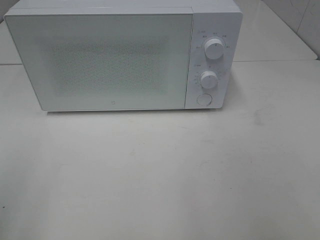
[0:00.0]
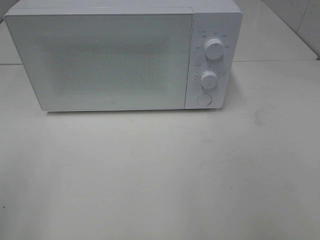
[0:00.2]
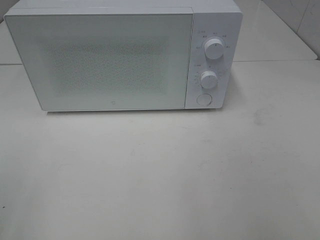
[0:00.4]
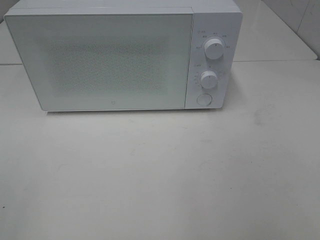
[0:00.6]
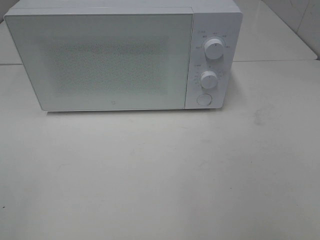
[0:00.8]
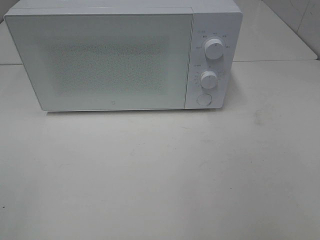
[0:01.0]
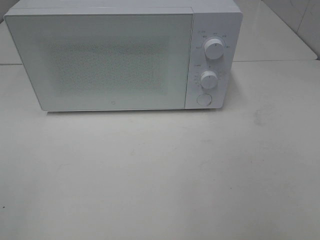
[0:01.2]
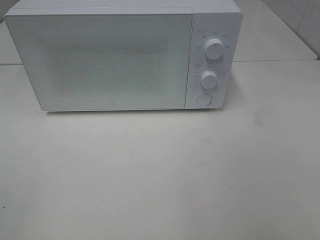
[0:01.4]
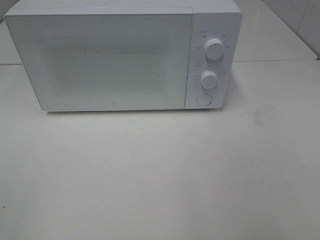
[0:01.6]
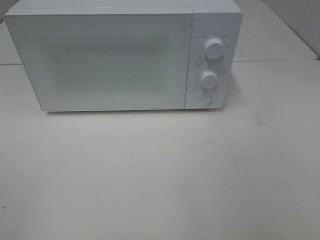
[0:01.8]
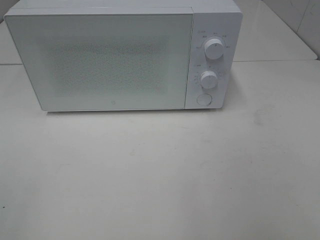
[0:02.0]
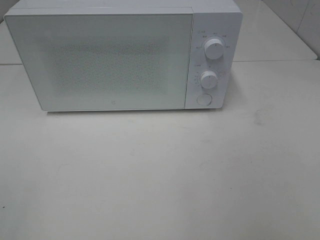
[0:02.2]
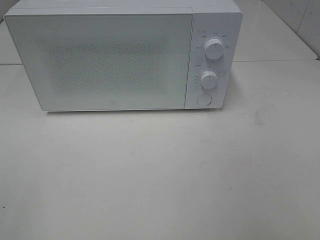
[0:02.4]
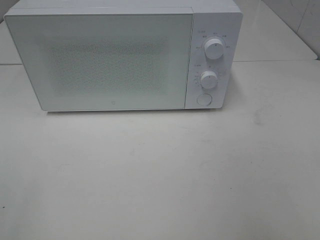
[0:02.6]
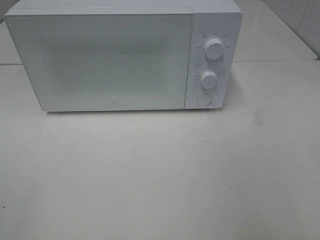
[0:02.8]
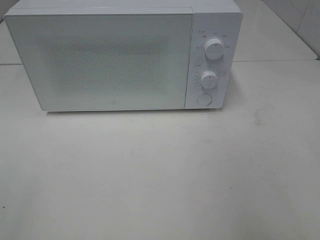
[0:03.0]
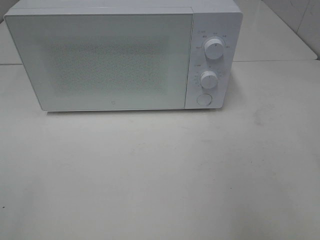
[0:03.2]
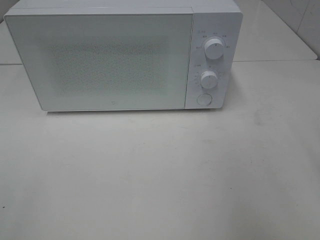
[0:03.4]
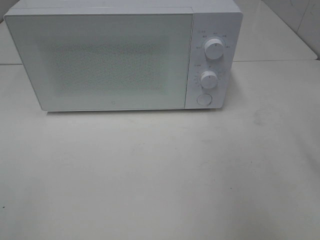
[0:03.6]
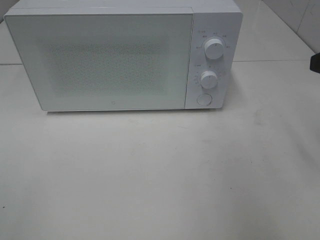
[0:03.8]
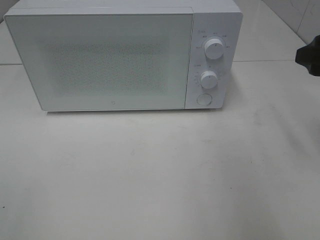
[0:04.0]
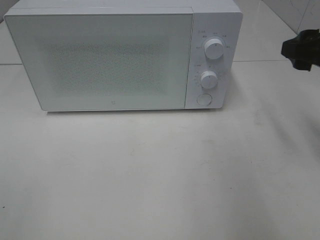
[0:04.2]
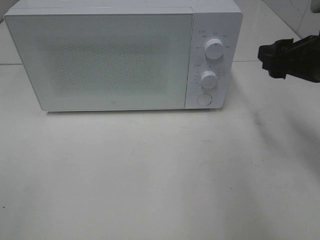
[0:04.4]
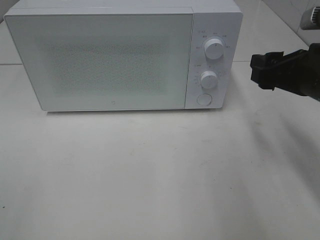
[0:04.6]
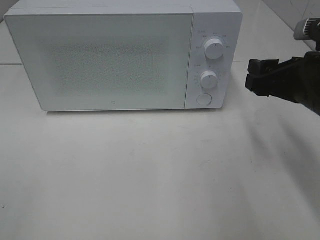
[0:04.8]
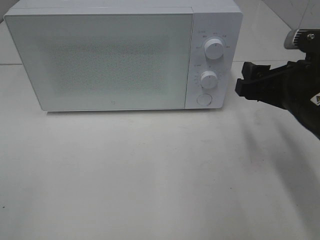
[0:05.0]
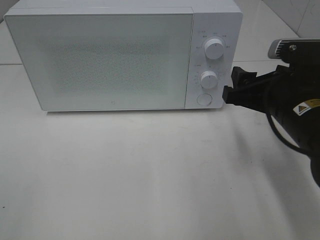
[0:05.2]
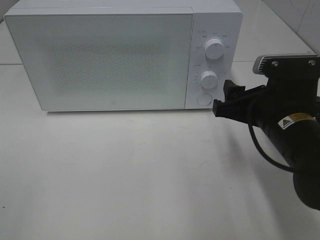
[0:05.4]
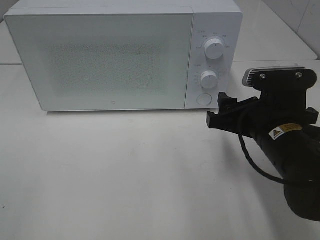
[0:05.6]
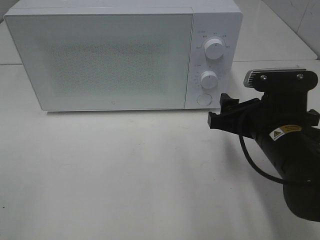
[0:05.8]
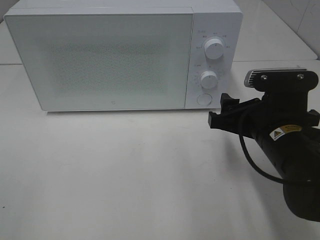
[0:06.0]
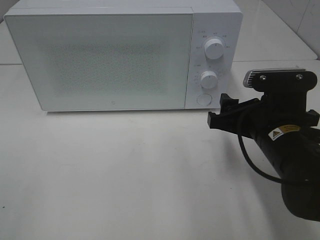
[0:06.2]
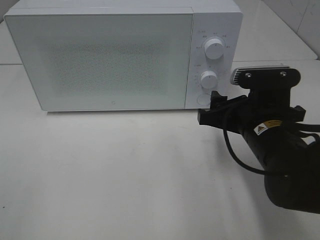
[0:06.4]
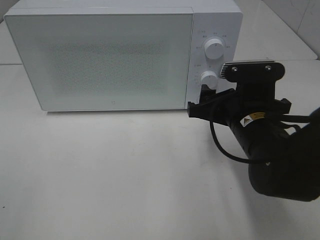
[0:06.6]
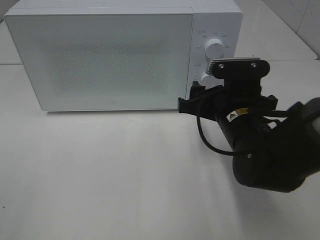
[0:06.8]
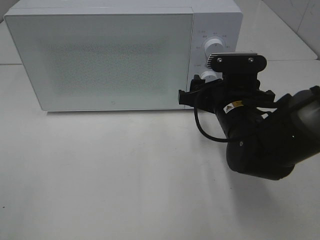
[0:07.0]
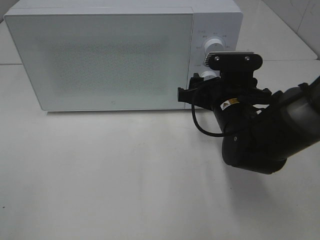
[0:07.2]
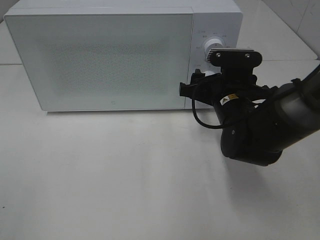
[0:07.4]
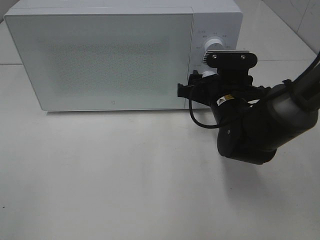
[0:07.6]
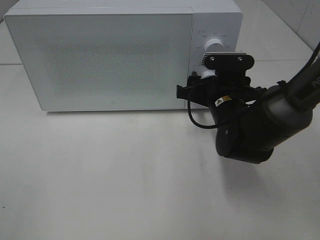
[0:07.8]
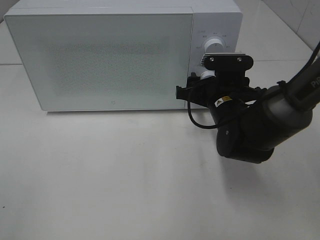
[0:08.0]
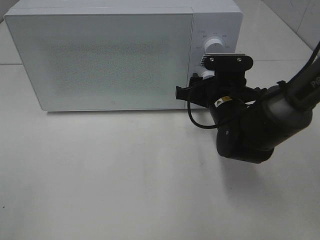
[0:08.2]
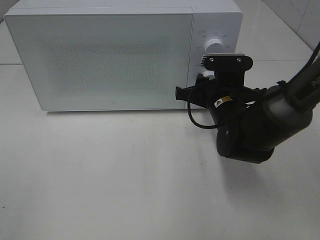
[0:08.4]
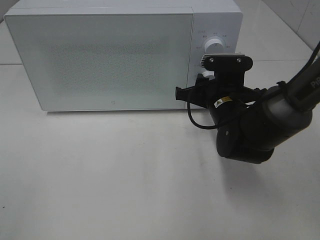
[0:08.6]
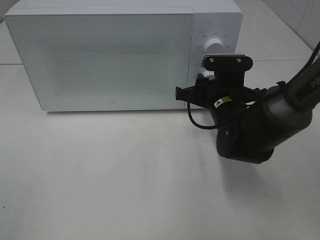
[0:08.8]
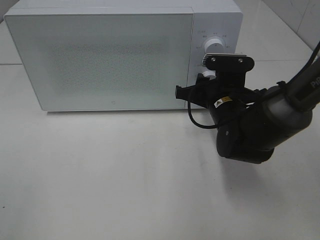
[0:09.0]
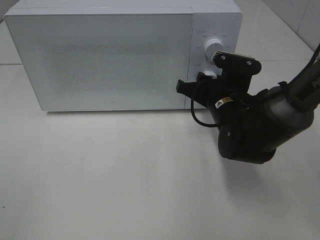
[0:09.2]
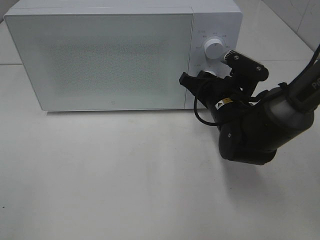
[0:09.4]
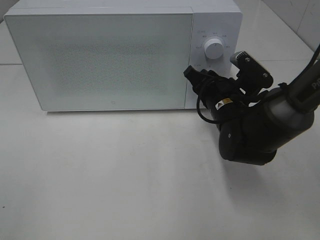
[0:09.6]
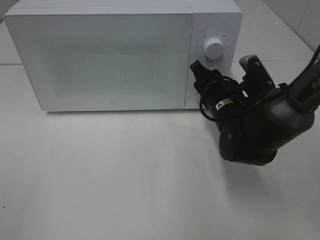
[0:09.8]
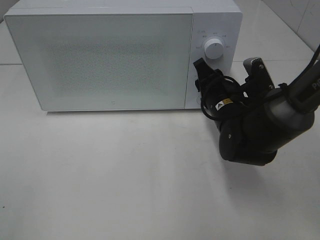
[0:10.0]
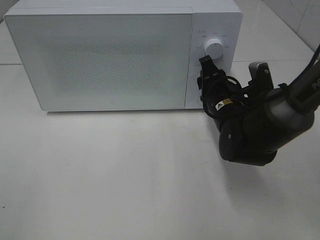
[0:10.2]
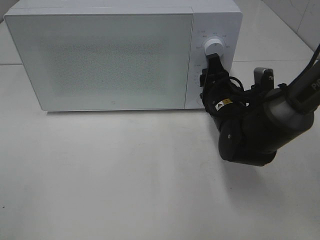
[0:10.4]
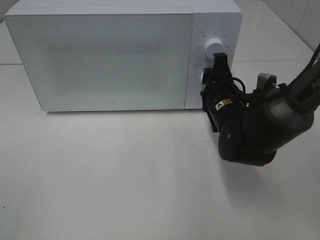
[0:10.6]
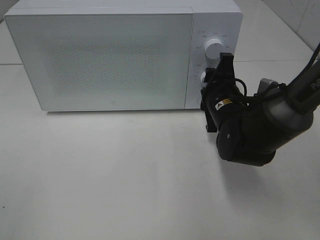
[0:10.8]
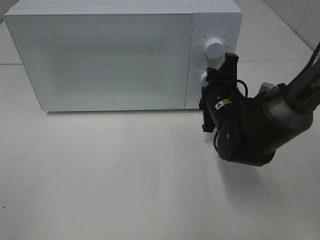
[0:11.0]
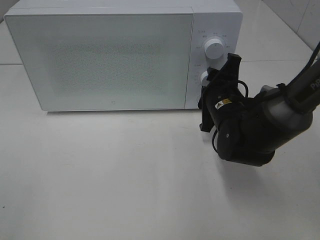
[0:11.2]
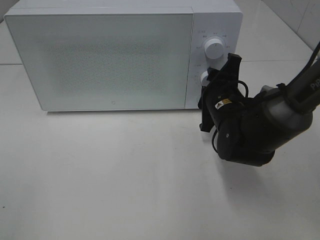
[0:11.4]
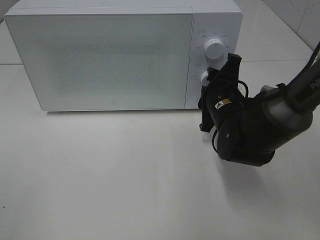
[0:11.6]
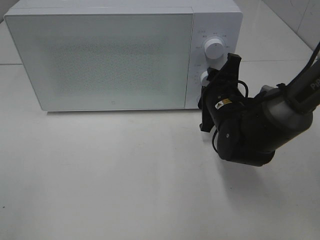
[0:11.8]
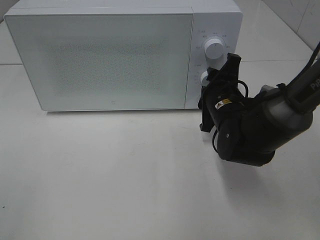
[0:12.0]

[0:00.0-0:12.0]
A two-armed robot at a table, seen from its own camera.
Task of the whole recording: Heat the burger.
0:03.0 to 0:04.4: The right gripper is displaced forward and downward by roughly 20 cm.
0:04.4 to 0:06.0: The right gripper heads downward and to the left, covering some 10 cm.
0:06.0 to 0:07.6: The right gripper moves forward, about 10 cm.
0:07.6 to 0:09.0: Neither gripper changes place.

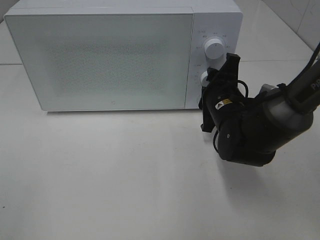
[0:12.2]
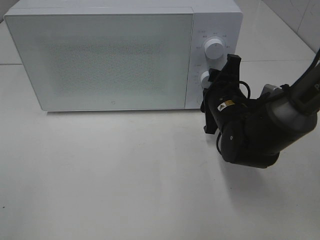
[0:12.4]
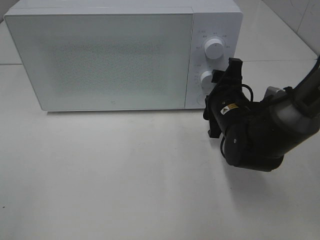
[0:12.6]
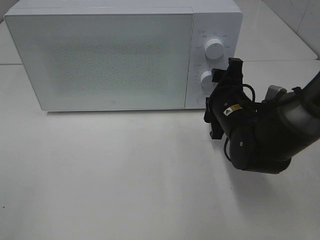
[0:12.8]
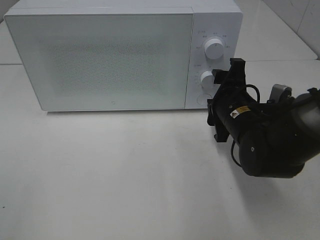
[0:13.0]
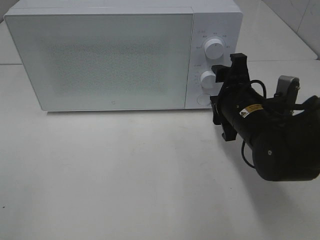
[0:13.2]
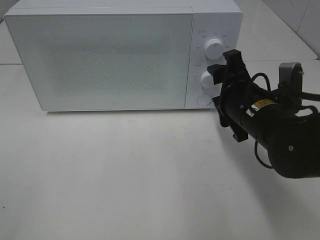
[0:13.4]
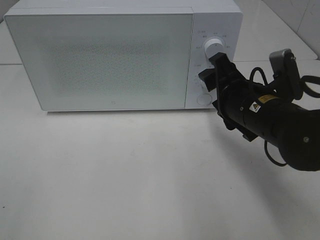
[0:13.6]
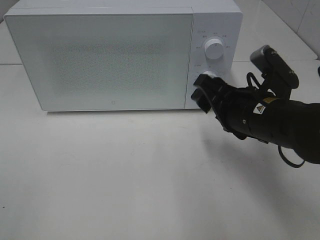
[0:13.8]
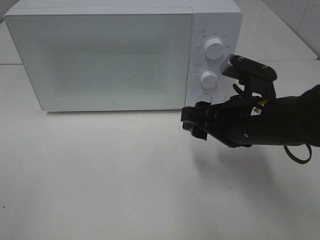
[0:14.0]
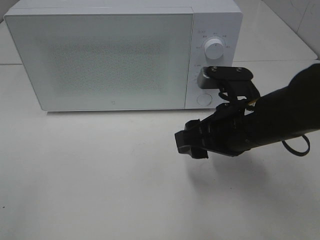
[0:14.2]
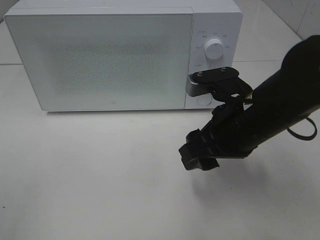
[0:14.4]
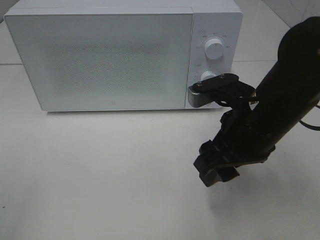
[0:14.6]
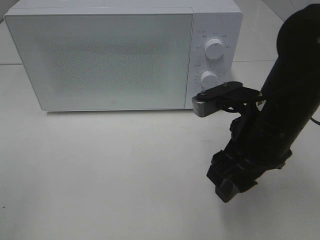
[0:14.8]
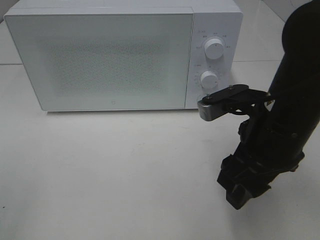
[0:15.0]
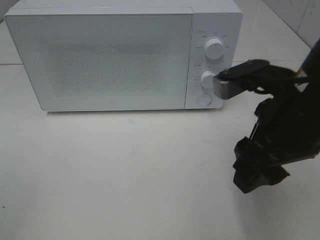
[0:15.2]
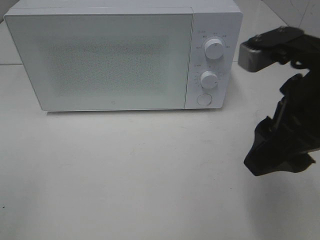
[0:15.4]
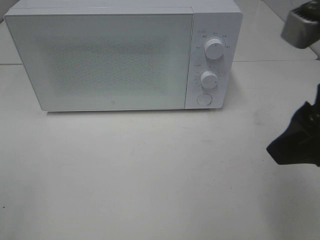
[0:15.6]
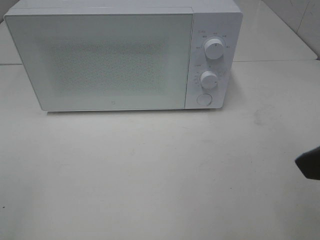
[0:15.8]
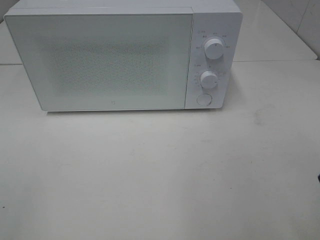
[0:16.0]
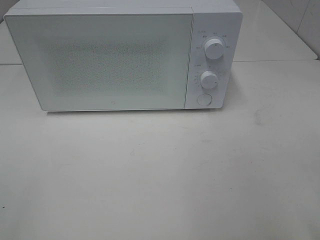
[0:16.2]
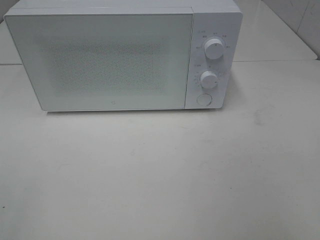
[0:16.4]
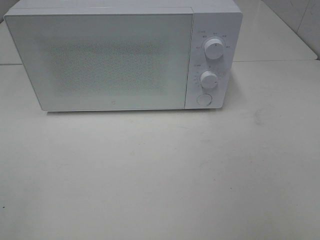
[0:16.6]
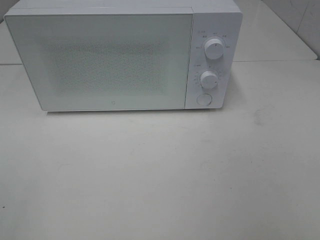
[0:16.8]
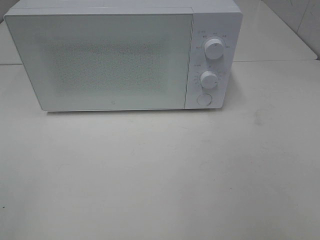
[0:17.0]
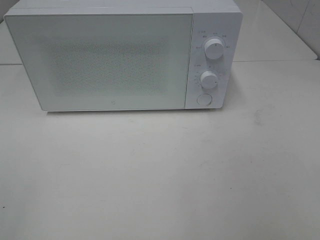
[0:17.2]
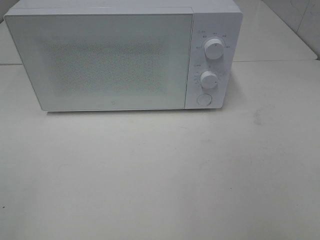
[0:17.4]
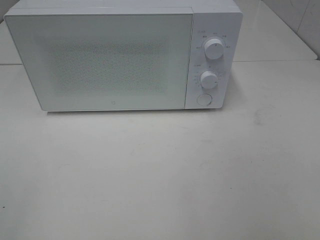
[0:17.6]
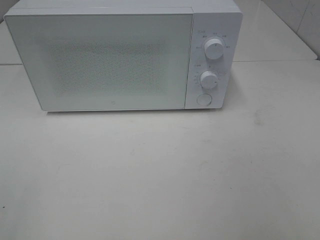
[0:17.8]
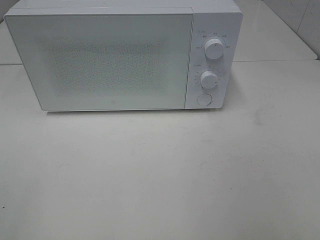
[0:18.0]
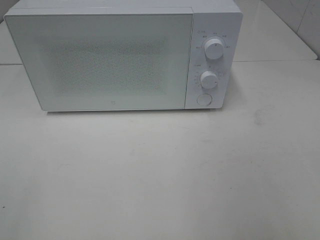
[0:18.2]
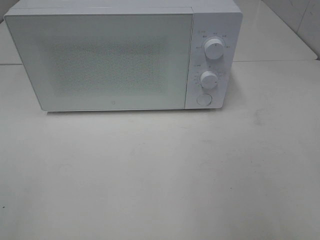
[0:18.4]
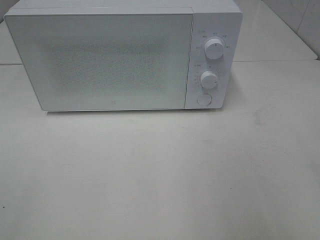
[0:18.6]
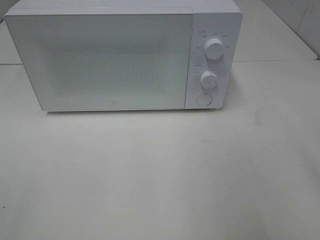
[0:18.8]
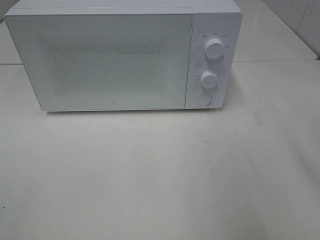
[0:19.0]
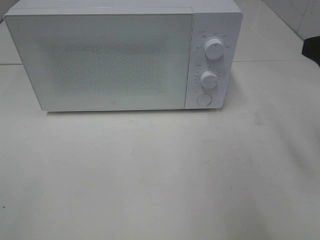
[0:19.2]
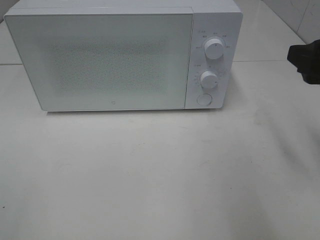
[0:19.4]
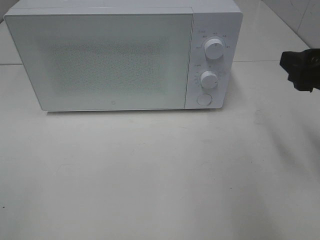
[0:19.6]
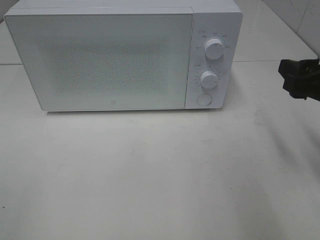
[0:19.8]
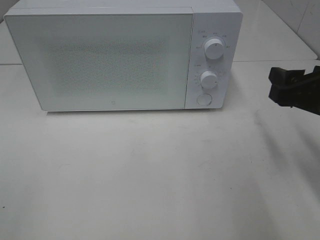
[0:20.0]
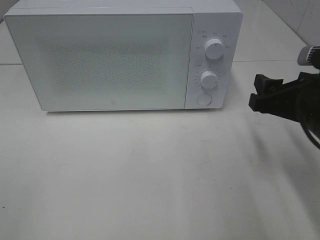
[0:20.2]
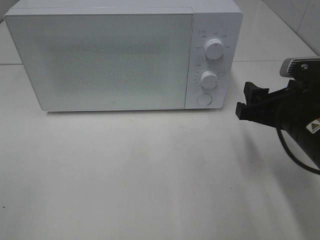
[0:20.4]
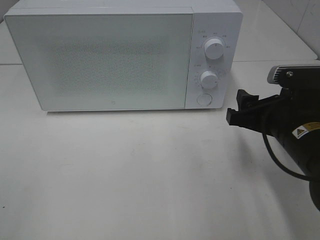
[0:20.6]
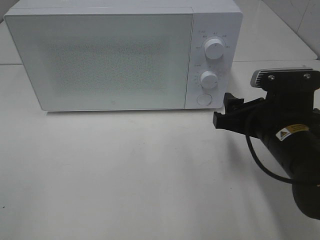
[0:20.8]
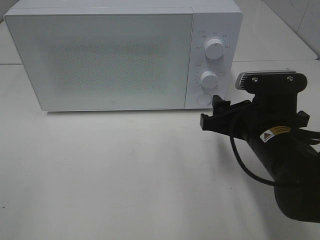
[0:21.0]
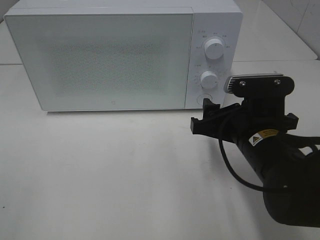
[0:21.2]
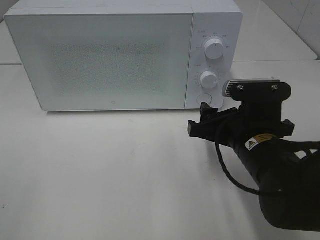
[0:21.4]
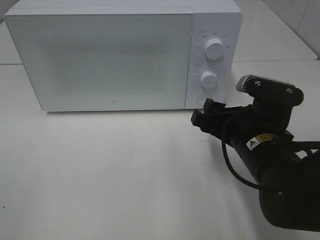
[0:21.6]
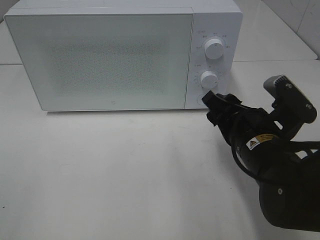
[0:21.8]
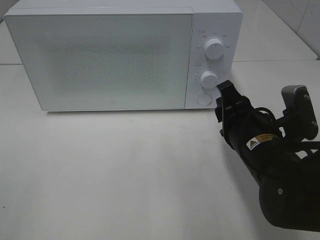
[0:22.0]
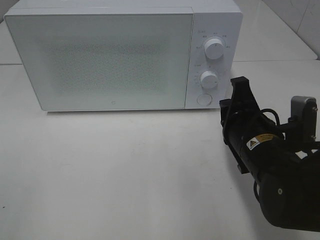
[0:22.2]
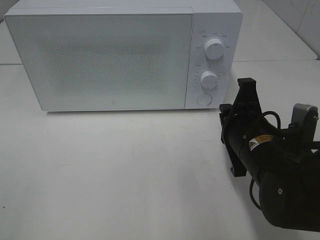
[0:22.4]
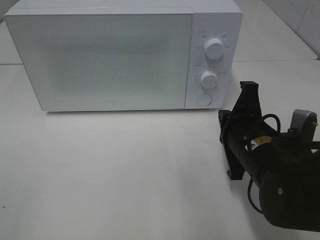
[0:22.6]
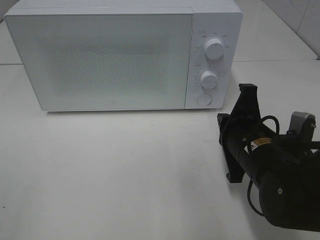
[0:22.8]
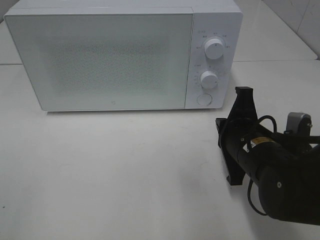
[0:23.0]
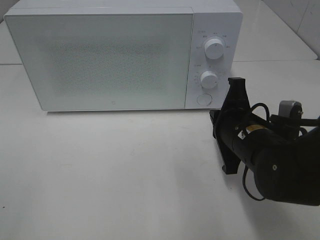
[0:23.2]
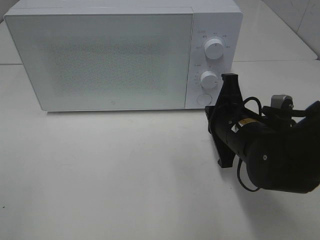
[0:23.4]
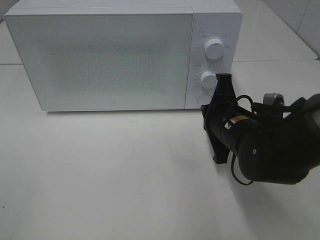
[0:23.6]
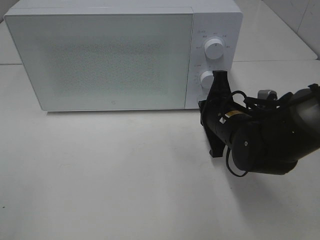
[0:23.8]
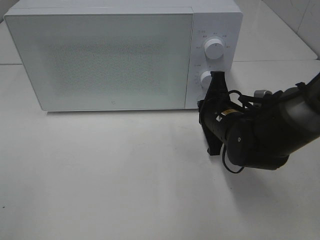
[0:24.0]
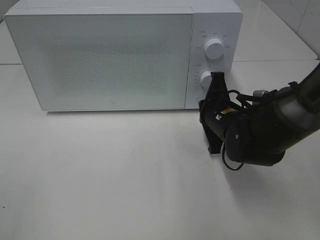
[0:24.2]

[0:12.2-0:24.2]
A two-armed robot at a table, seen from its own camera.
Task of the whole recording: Heat the burger.
0:12.2 to 0:13.8: The right gripper travels backward and upward by about 10 cm.
0:13.8 to 0:15.2: The right gripper shifts approximately 10 cm upward and backward.
0:15.2 to 0:16.6: The right gripper is displaced backward and to the right by approximately 20 cm.
0:18.2 to 0:19.8: The right gripper shifts approximately 20 cm forward and downward.
0:19.8 to 0:21.2: The right gripper travels to the left and downward by roughly 15 cm.
0:21.2 to 0:22.6: The right gripper closes its fingers.
0:22.6 to 0:24.2: The right gripper is displaced forward by about 10 cm.
